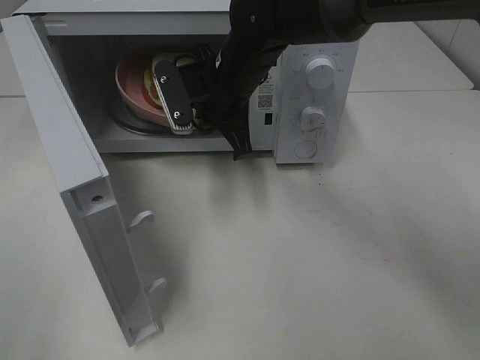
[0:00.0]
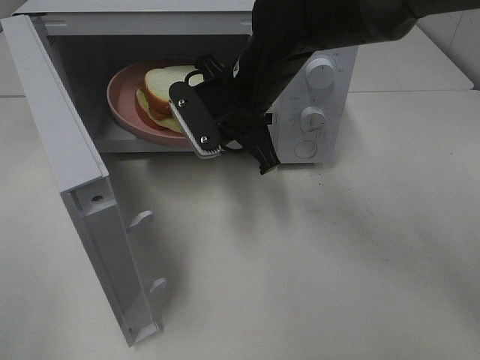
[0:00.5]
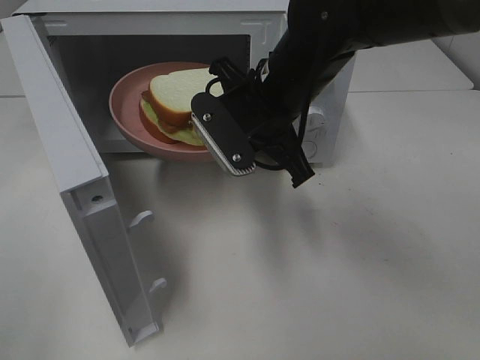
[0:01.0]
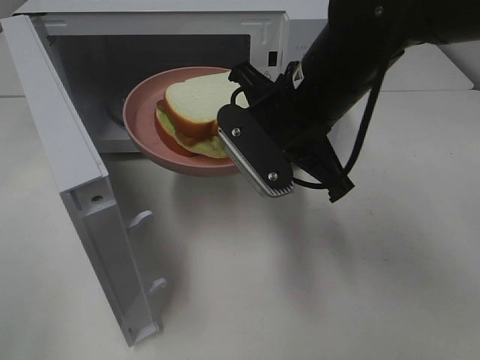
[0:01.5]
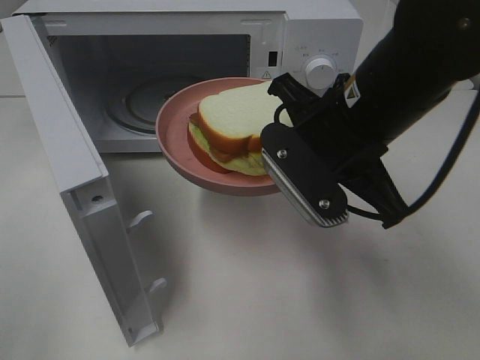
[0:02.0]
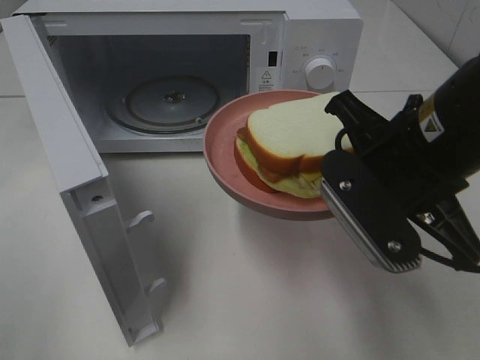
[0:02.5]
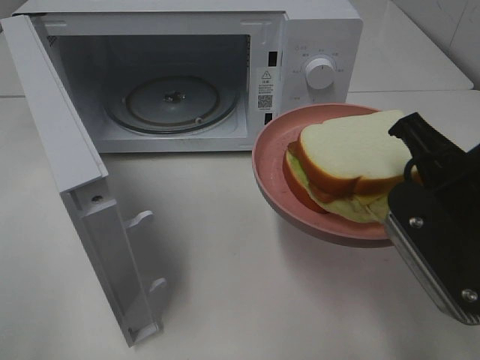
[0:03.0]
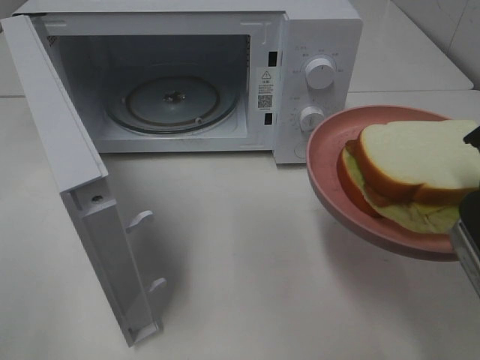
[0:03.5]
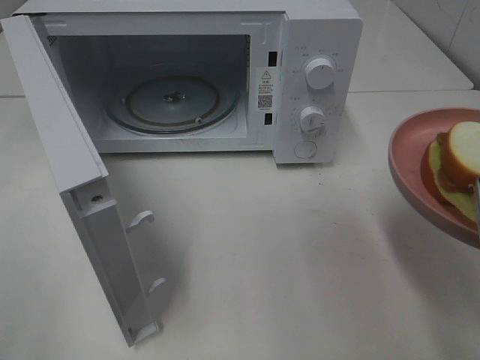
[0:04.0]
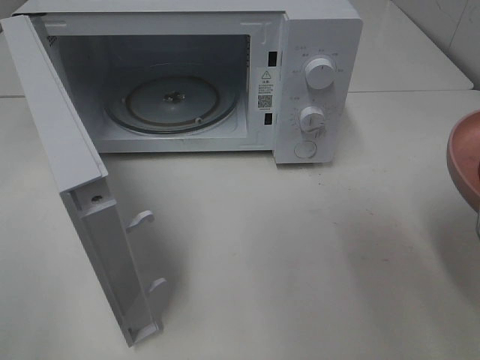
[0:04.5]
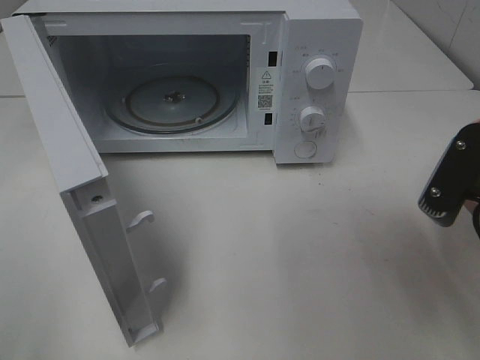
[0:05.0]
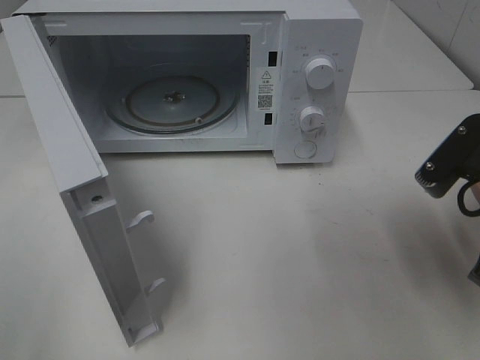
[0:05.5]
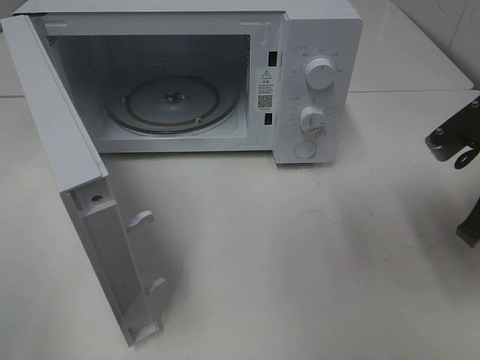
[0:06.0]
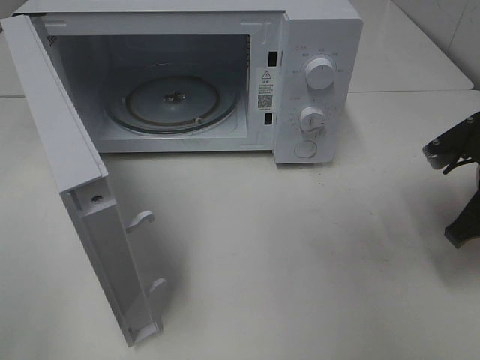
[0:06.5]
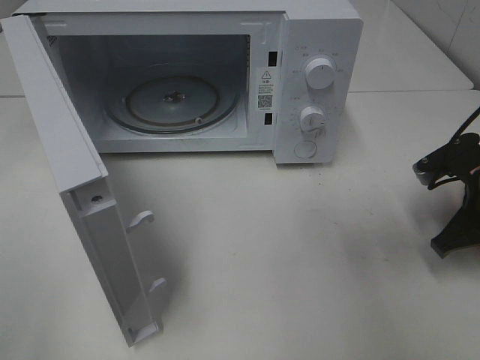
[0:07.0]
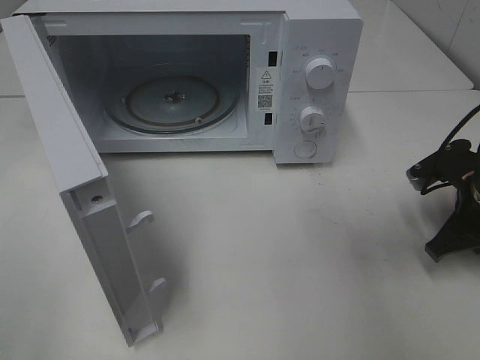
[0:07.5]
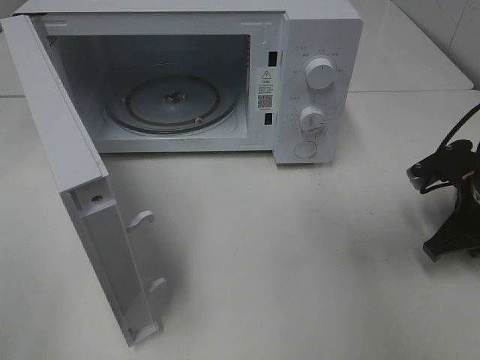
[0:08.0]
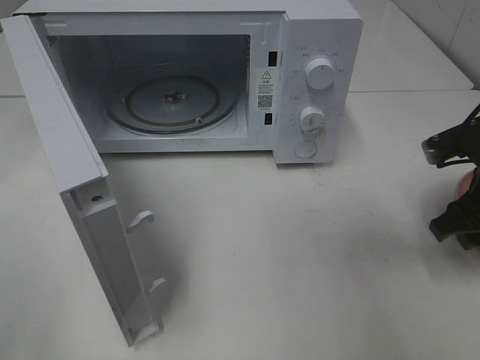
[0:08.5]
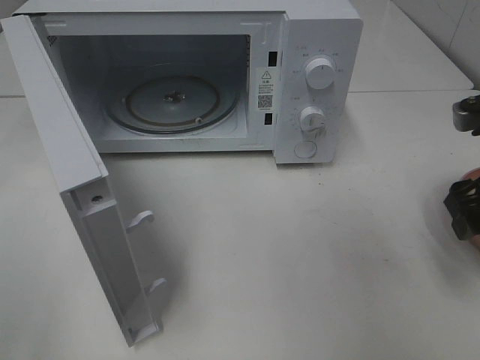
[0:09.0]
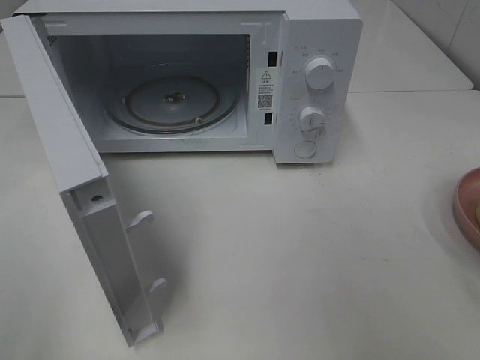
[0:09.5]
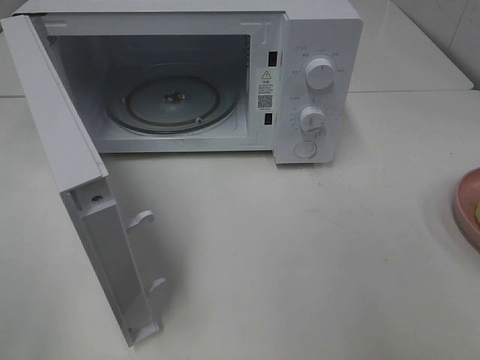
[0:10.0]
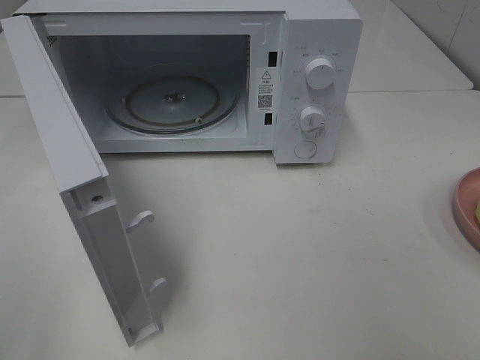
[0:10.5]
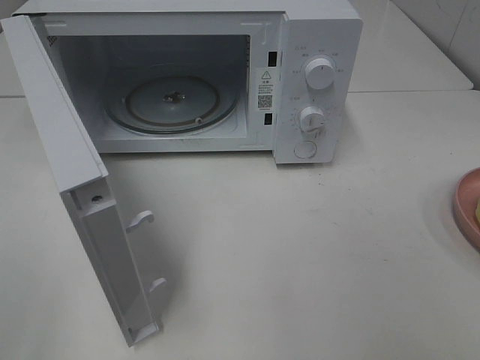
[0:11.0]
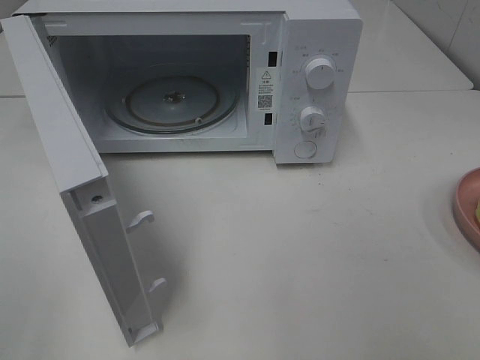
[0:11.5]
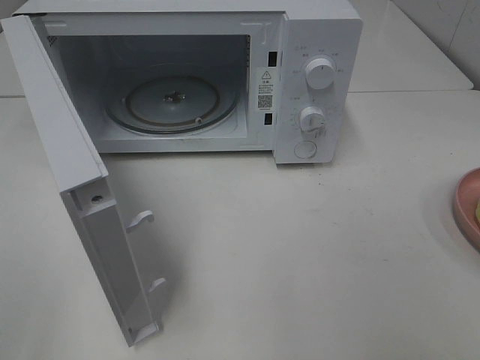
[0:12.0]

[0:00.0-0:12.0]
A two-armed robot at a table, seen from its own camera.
Task of the whole recording: Heat Sandwich.
Step, 0:00.0 to 0:08.0: Right hand: place the plate on the table.
0:00.0 to 0:02.0: The right gripper travels backward and to the right by some 20 cm.
0:02.0 to 0:04.0: The right gripper moves to the right and backward, approximately 15 cm.
0:04.0 to 0:06.0: The right gripper goes roughly 10 cm forward and downward.
0:06.0 to 0:08.0: The right gripper heads downward, covering some 10 cm.
0:08.0 to 0:10.0: The right gripper moves upward and backward, about 25 cm, and opens up.

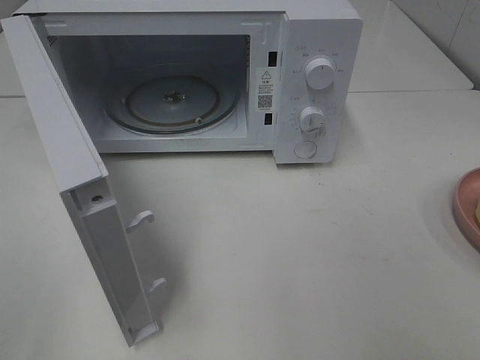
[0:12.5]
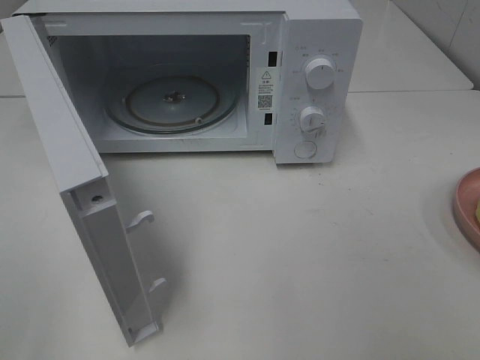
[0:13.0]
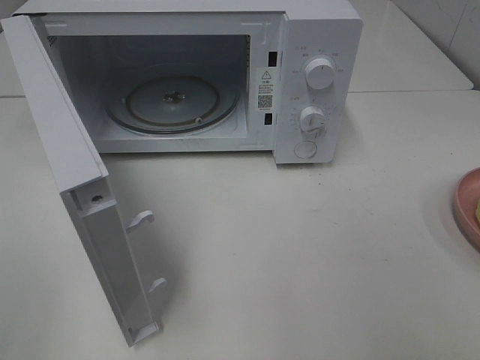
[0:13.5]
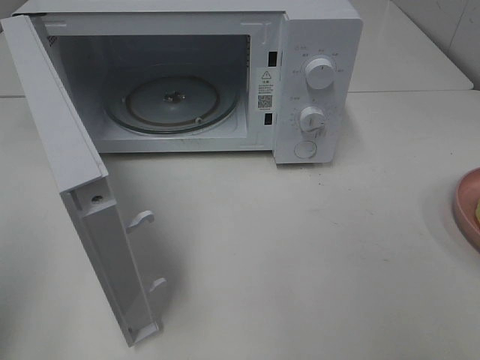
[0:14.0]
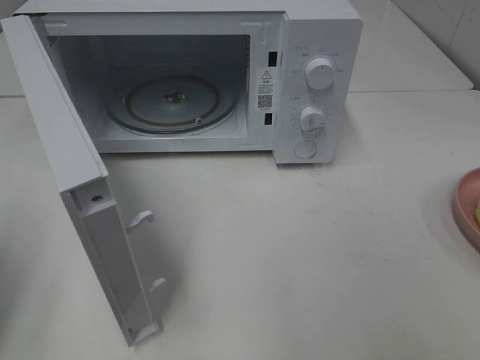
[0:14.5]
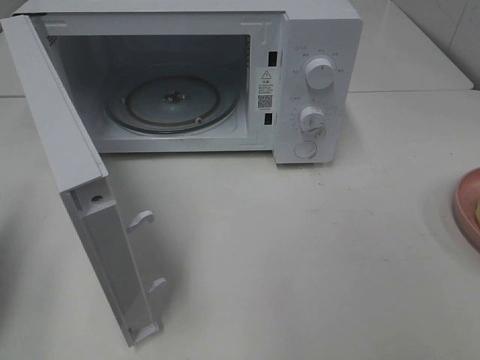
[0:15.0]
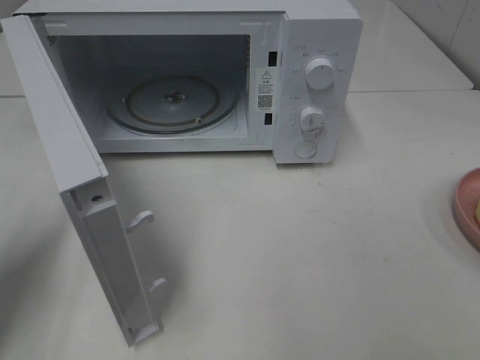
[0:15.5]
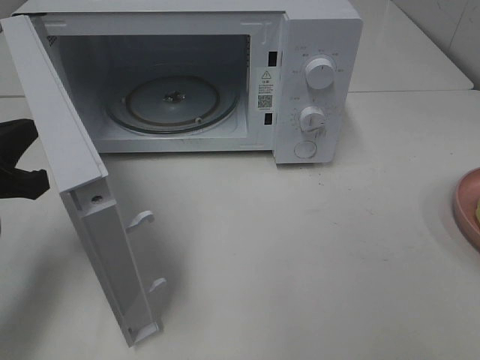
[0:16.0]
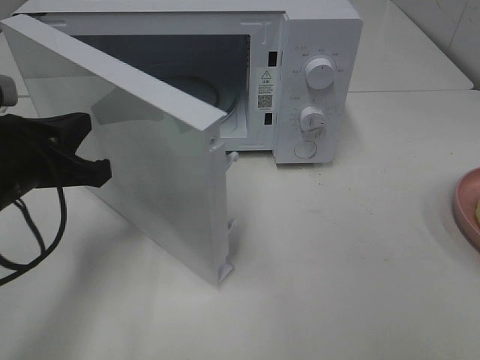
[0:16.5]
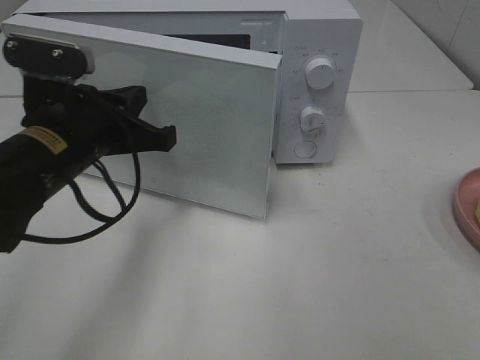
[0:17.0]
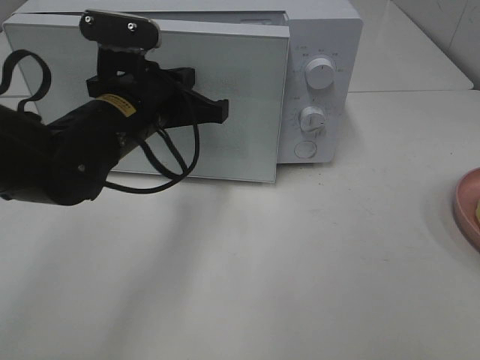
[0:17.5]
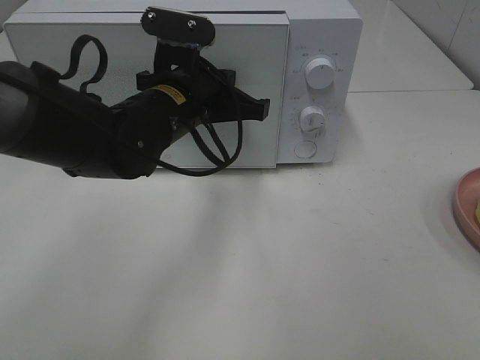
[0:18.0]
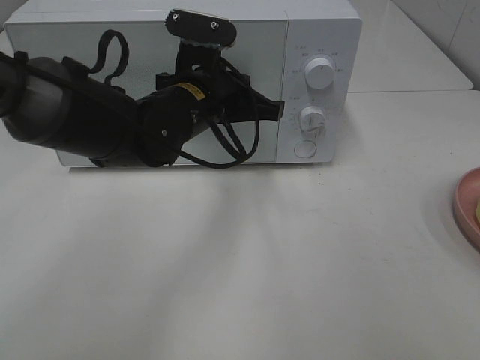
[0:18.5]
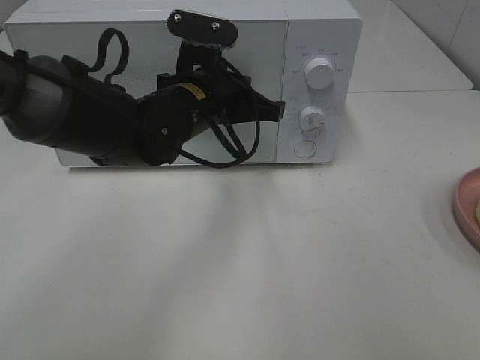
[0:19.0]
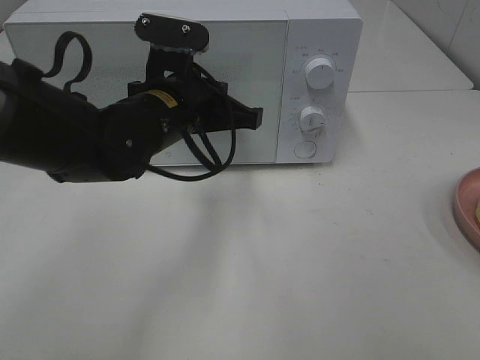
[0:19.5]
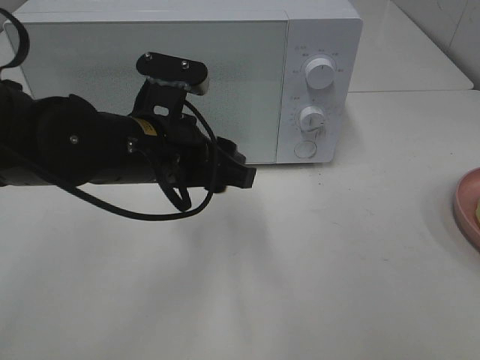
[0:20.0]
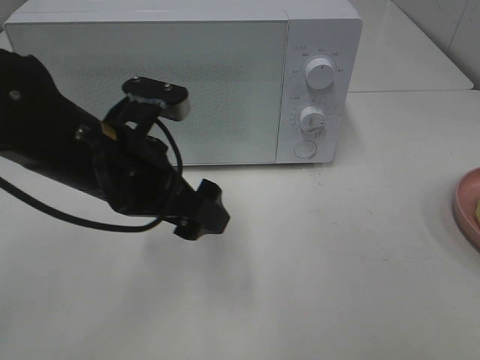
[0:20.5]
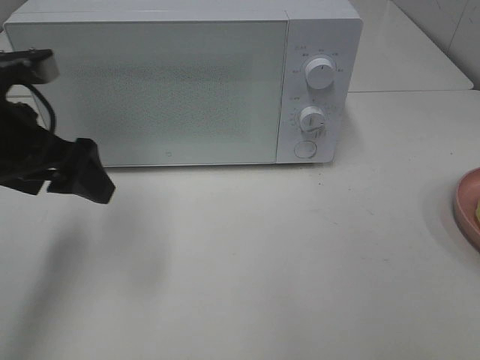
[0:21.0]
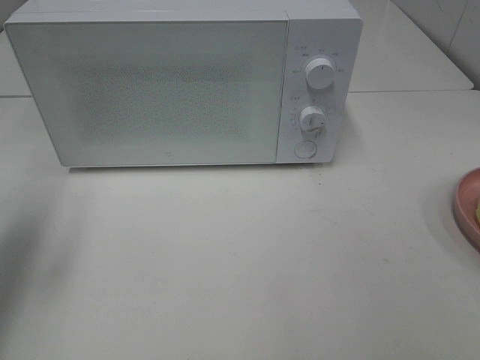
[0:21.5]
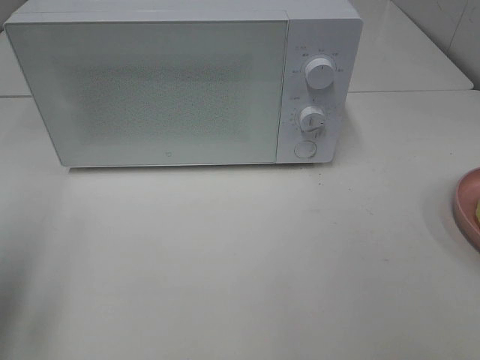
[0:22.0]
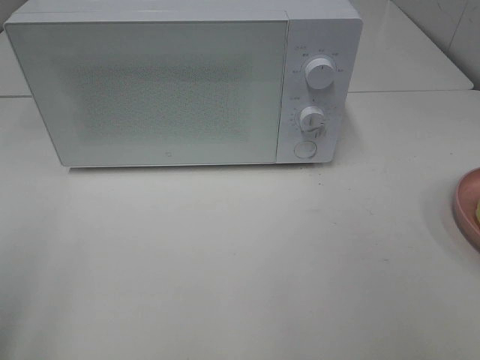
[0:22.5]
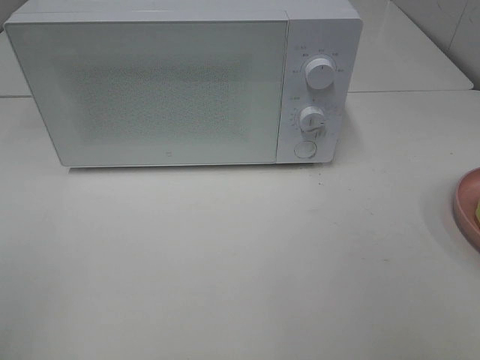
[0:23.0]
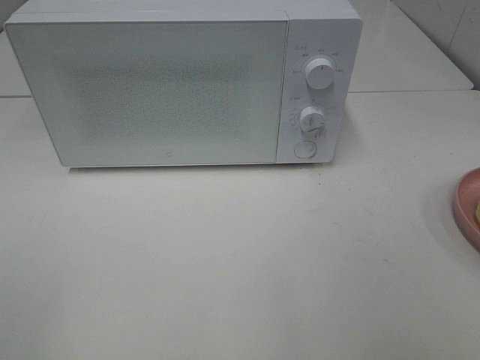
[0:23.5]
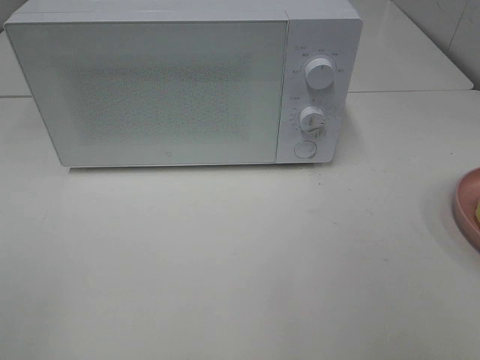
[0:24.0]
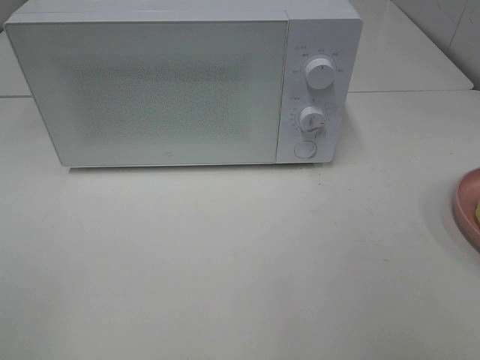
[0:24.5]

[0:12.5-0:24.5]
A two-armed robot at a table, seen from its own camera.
Task of the whole recording: Heat Sandwich.
Step, 0:12.5 to 0:18.5: Left hand: close the microwave door.
0:14.5 to 0:16.5: The left gripper moves to the right, forward and downward, approximately 20 cm.
0:16.5 to 0:18.5: The left gripper travels to the right and forward by some 20 cm.
0:18.5 to 0:20.5: The left gripper heads backward and to the left, covering approximately 10 cm, and opens up.
0:20.5 to 0:22.5: The left gripper shifts some 25 cm to the left and backward.
